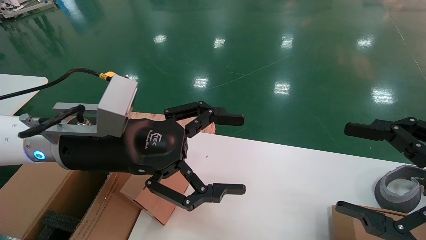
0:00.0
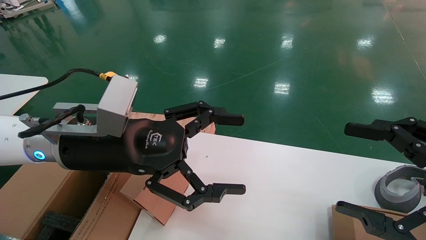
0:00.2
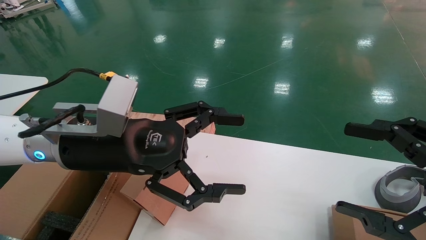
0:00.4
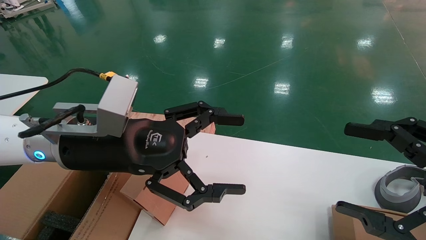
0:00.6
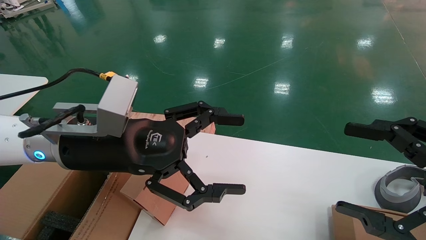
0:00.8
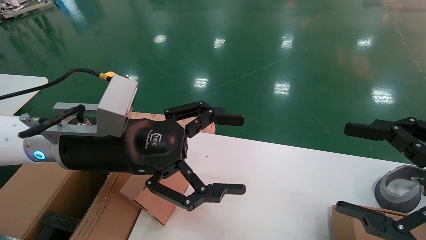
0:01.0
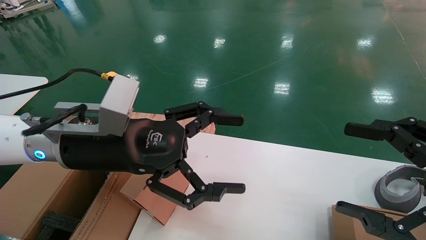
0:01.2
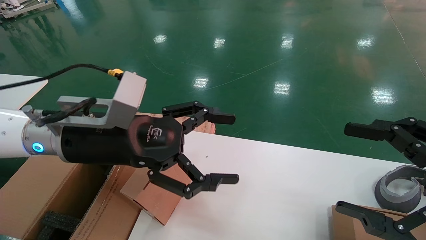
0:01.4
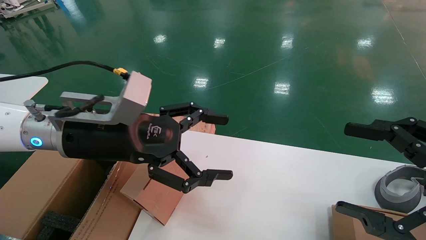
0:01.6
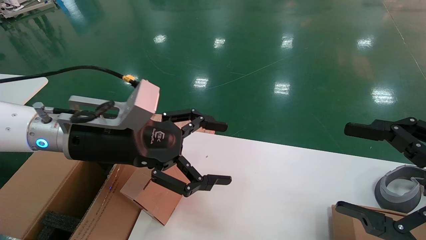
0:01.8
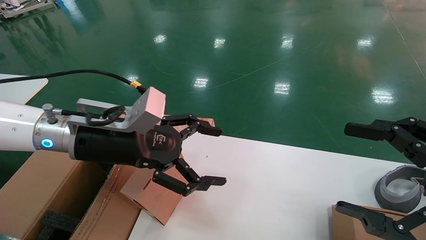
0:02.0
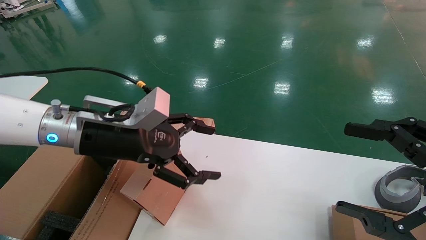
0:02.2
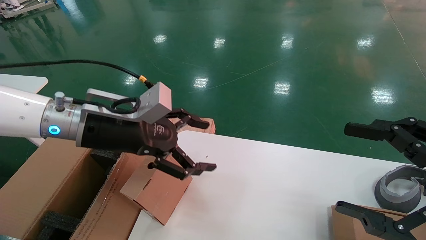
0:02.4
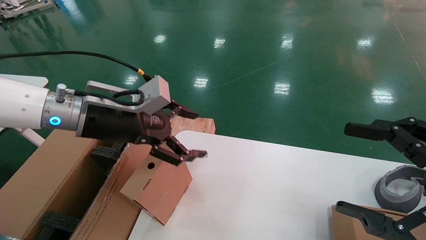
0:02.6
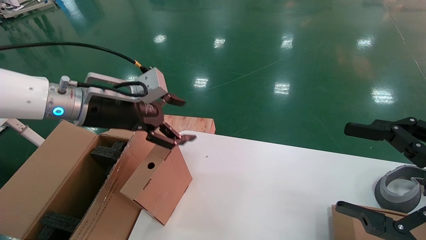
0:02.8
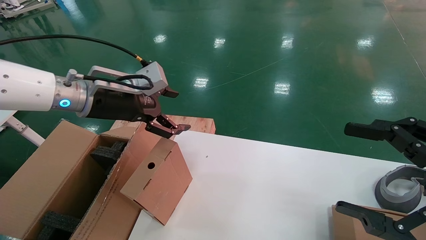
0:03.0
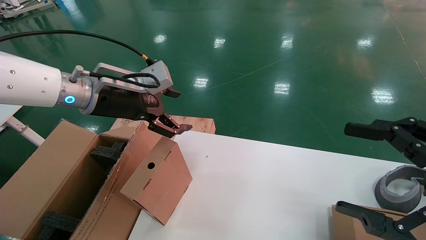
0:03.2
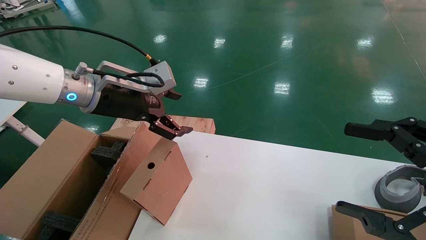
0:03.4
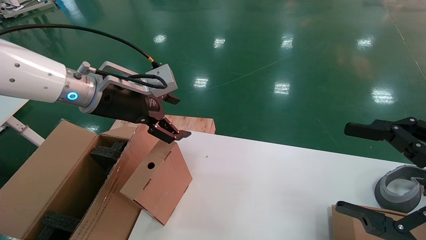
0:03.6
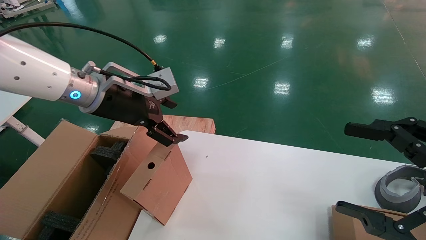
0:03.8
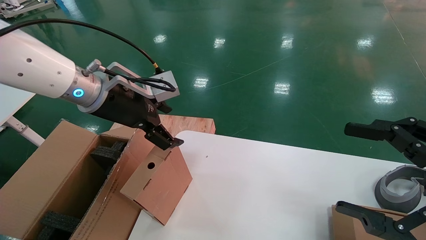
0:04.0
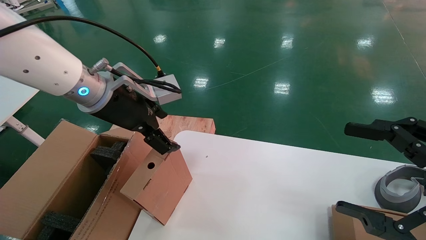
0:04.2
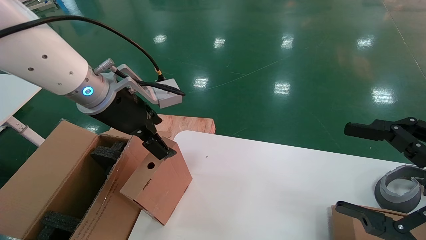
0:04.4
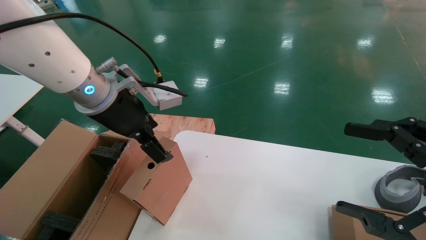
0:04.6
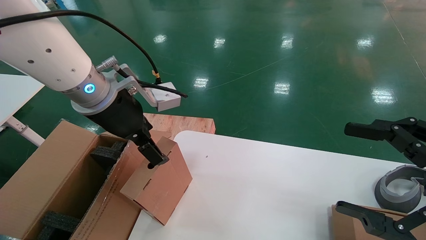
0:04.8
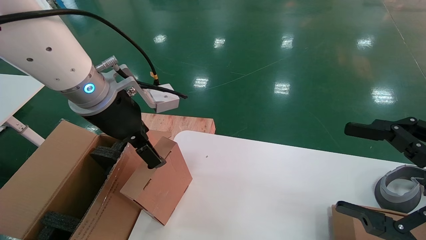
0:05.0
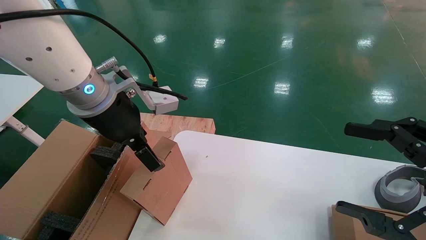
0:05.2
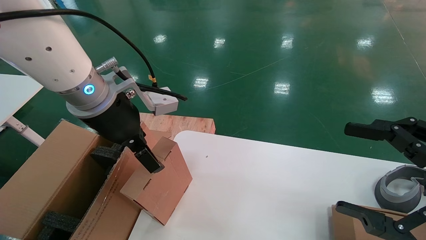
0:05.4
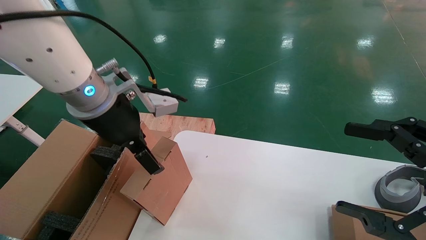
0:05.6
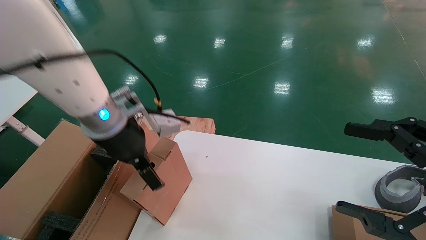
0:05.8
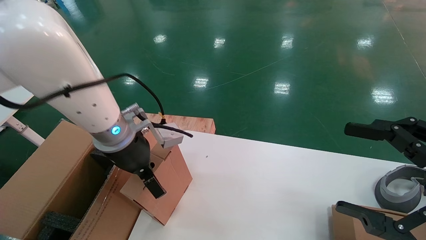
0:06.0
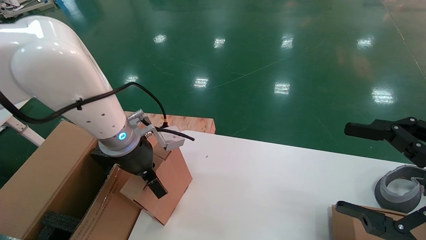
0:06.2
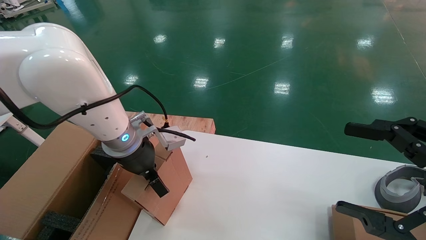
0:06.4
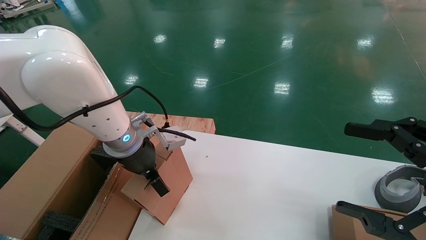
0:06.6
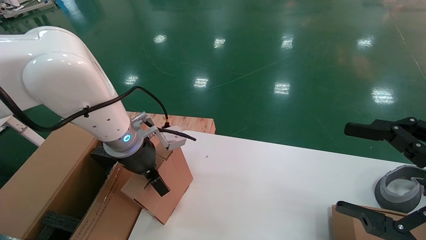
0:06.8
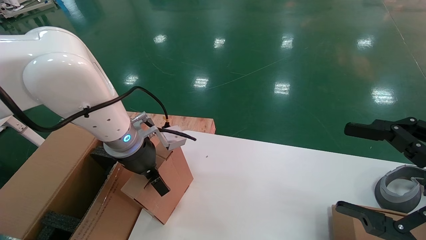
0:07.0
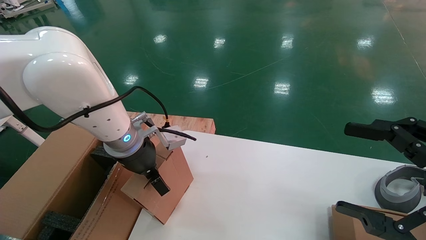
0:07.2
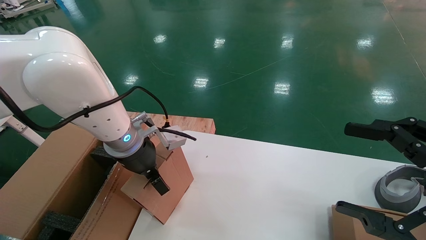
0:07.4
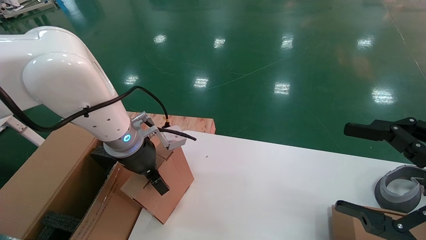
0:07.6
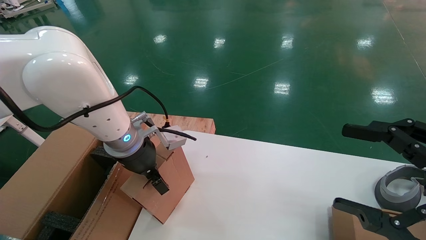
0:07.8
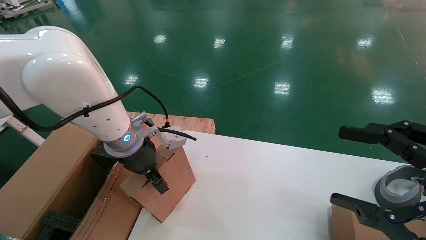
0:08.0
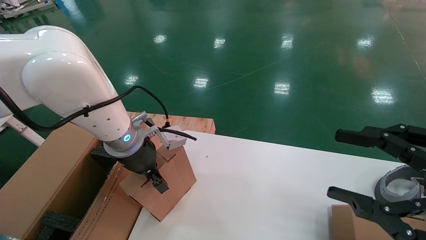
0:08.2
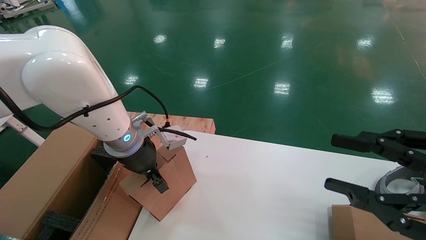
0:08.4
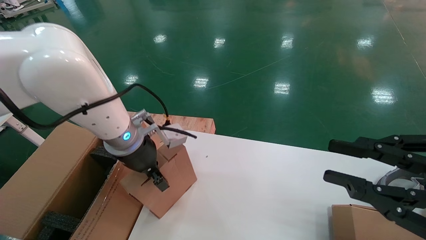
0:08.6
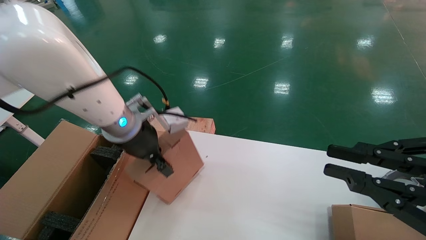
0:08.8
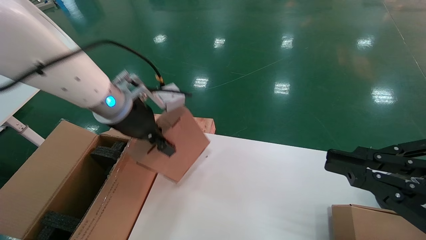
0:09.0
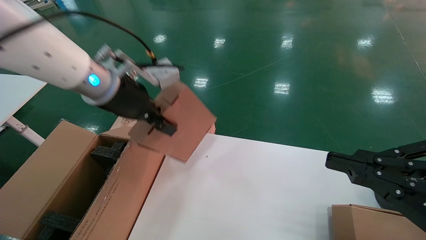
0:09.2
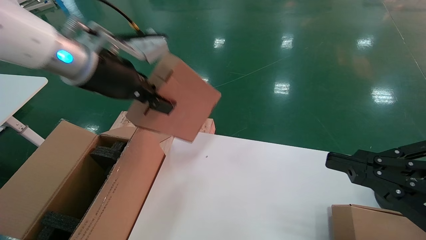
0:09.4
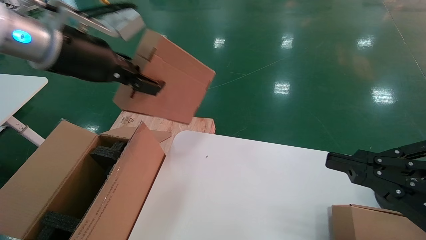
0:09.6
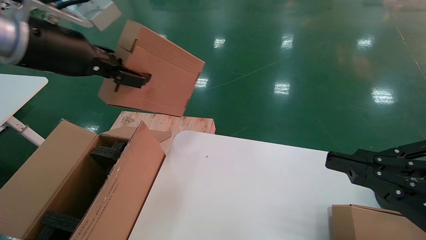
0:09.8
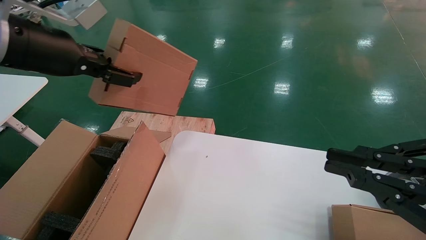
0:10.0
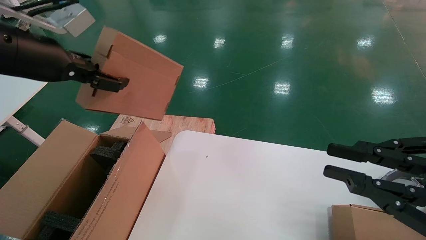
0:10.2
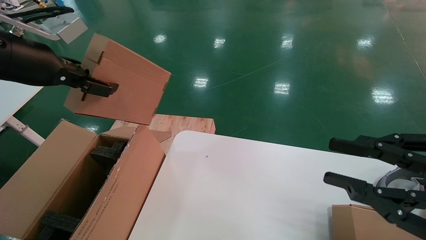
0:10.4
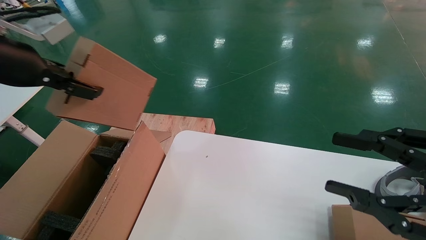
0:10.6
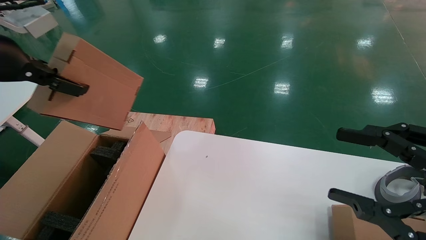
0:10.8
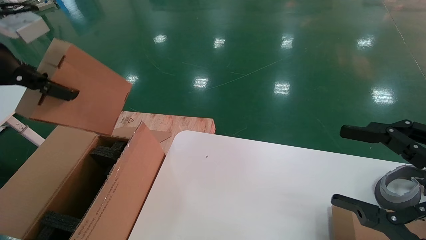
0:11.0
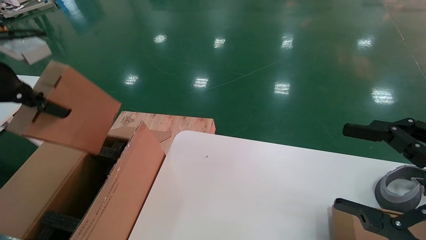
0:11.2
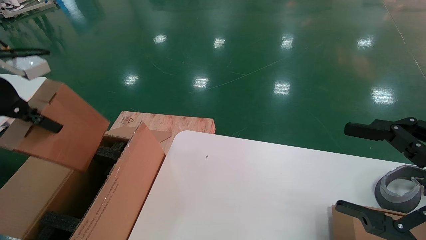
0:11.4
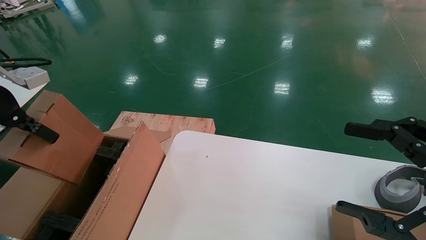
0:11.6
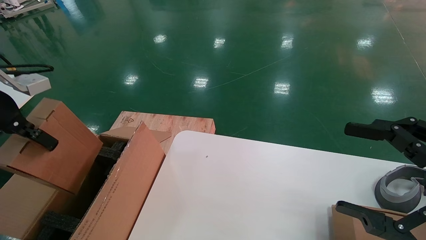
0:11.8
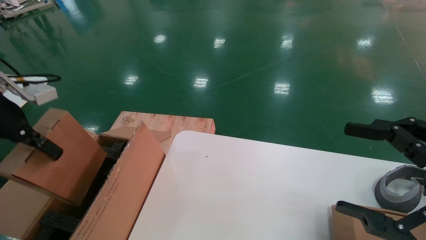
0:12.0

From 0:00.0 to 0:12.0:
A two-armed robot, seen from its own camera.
Task of the whole recording: put the box on the table into the big box.
Step, from 0:00.0 to 0:08.4: Grasp the paper box.
From 0:00.0 to 0:01.6: The grippers stay close to where they were, moving slightly.
From 0:01.6 to 0:03.0: The left gripper travels forward by some 10 cm.
From 0:03.0 to 0:04.4: The left gripper goes roughly 5 cm to the right.
From 0:04.4 to 0:06.0: The left gripper shifts about 10 cm downward.
From 0:06.0 to 0:07.6: The grippers move only a little.
From 0:07.6 to 0:09.0: The left gripper heads upward, covering about 10 cm, and closes its fingers. The right gripper closes up.
From 0:09.0 to 0:10.4: The left gripper goes roughly 20 cm to the left, upward and backward.
From 0:10.4 to 0:12.0: The right gripper opens up; the left gripper heads downward and to the left, covering approximately 10 cm.

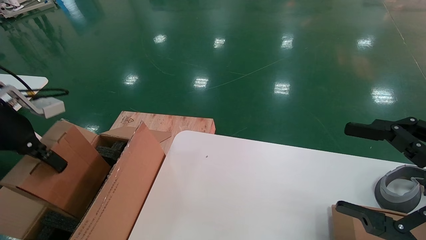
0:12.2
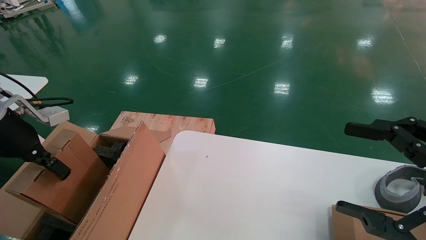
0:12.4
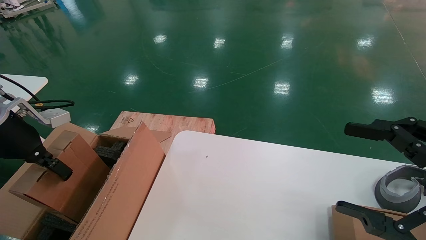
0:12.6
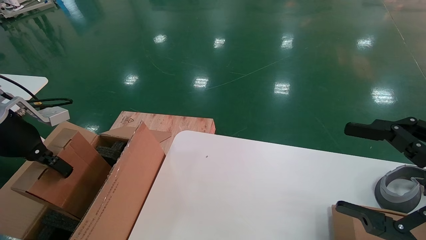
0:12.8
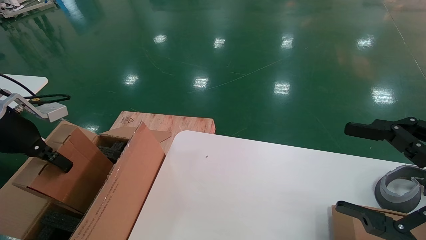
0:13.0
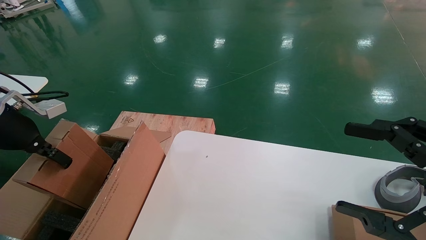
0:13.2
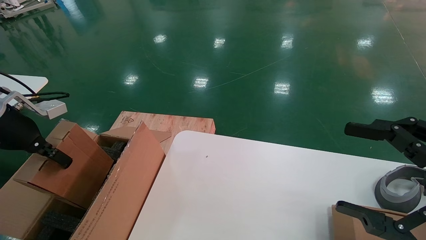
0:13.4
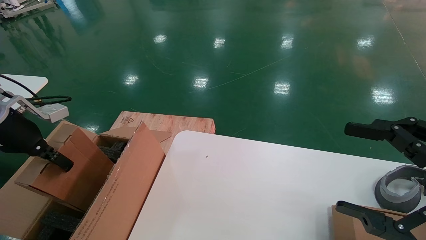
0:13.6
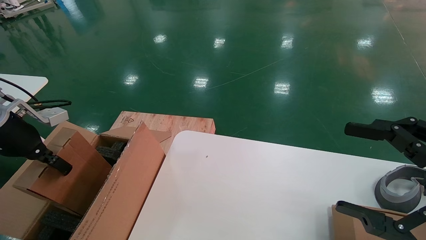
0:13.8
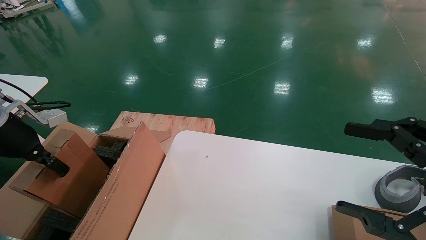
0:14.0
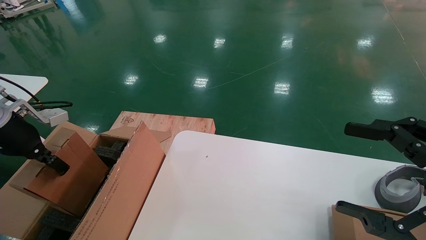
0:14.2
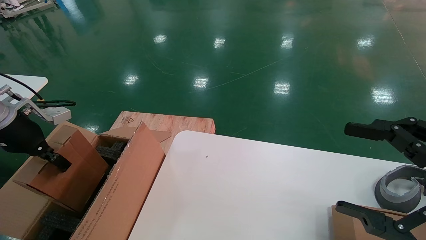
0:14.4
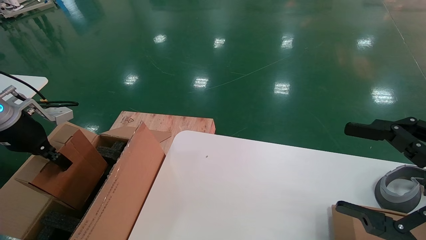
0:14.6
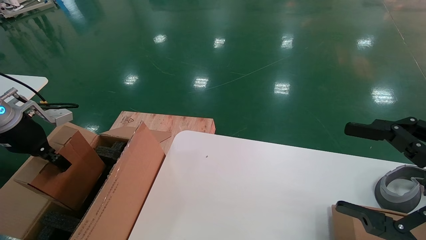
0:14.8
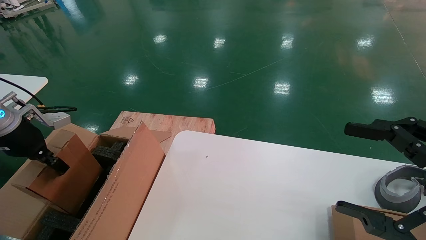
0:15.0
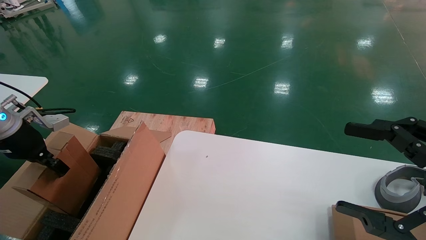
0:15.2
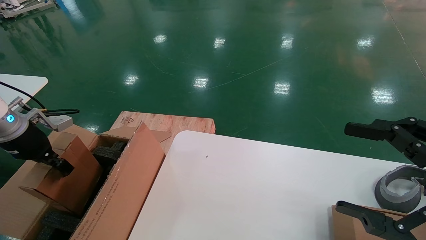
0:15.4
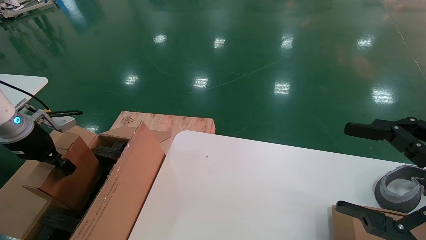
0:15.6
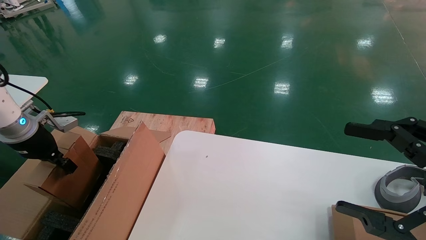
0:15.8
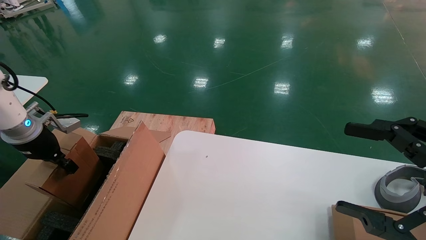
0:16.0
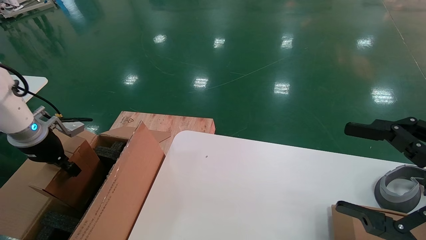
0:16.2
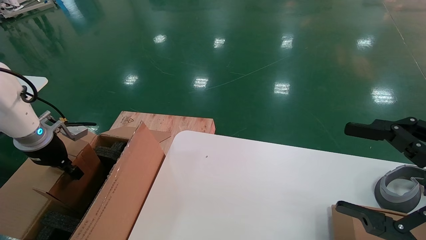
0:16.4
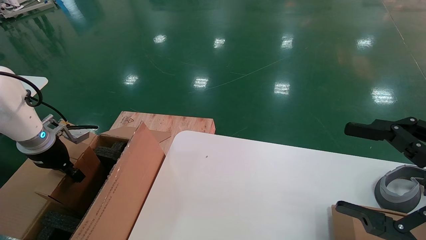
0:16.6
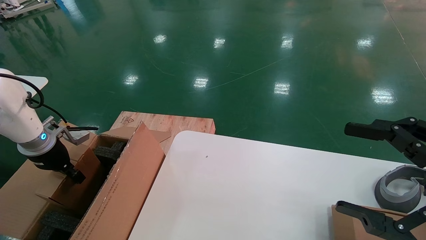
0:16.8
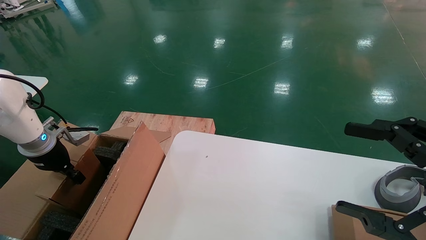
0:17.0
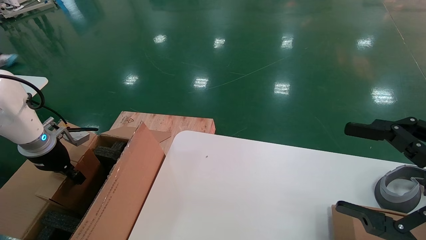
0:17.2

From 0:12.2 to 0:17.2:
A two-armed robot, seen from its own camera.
Task of the whole recording: put the box on the table into the big box.
From 0:12.2 to 0:13.8: The left gripper ends up some 5 cm from where it was.
From 0:13.8 to 0:15.6: The left gripper ends up some 5 cm from where it was.
From 0:15.6 to 0:17.2: The left gripper goes roughly 5 cm downward.
